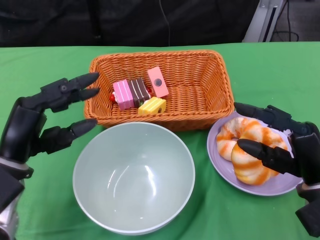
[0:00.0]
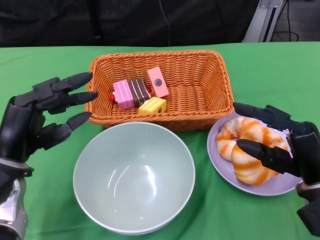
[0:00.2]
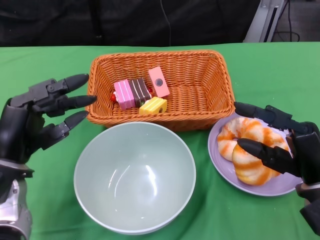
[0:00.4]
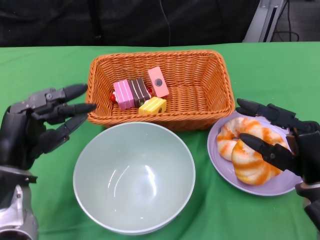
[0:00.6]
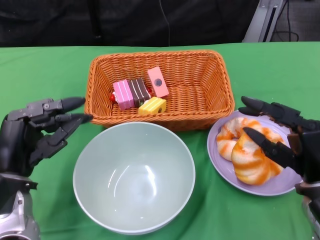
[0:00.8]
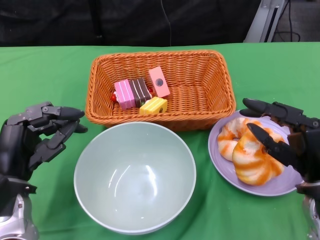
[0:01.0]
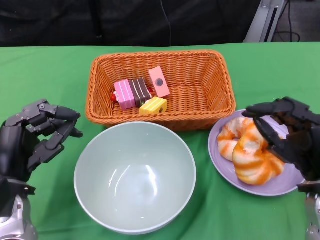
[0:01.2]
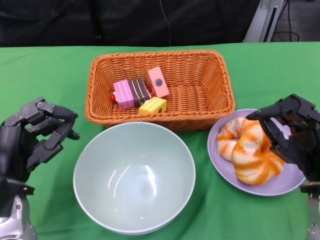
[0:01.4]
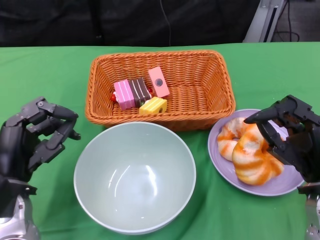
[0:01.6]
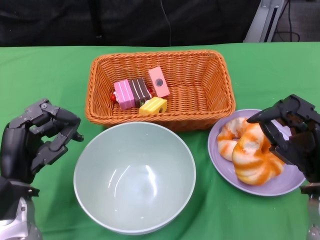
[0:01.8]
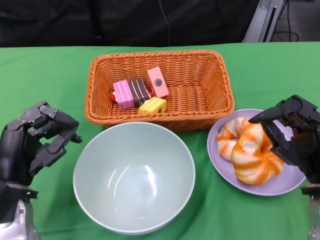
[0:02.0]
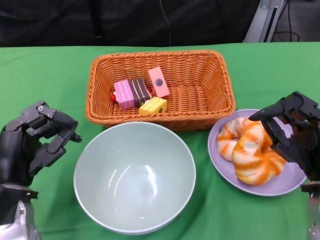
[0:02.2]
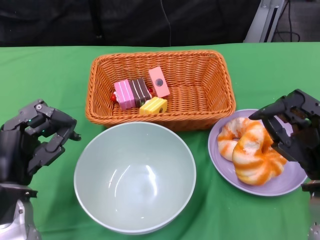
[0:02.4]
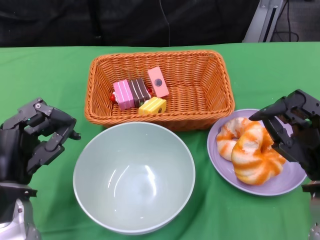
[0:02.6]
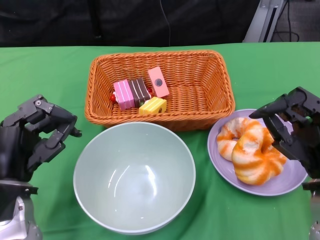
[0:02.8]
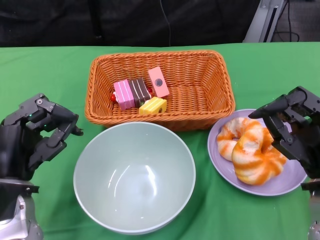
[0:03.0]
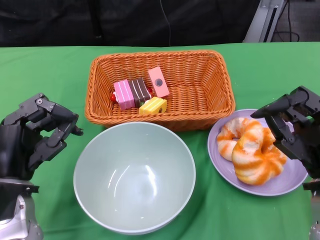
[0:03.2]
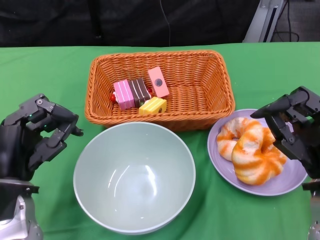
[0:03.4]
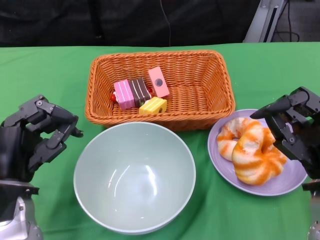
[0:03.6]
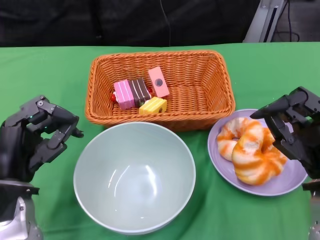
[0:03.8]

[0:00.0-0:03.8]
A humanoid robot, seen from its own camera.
0:01.2 to 0:02.6: The two hands keep their place.
0:02.6 to 0:03.8: Neither hand changes place.

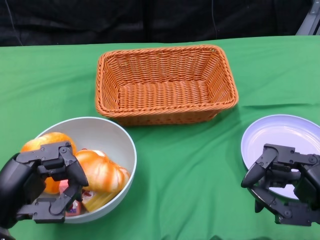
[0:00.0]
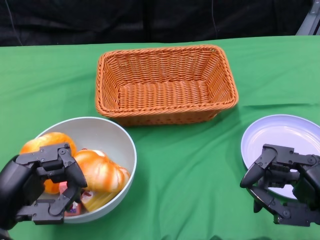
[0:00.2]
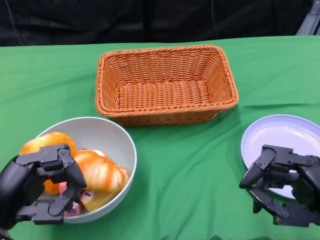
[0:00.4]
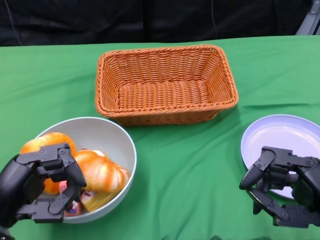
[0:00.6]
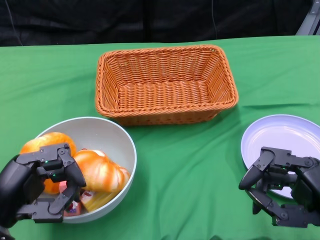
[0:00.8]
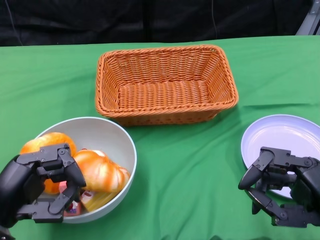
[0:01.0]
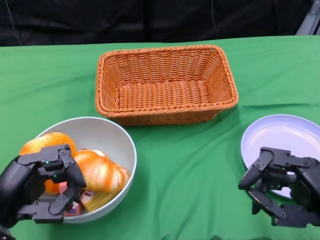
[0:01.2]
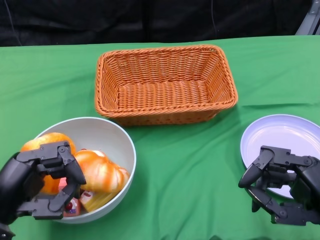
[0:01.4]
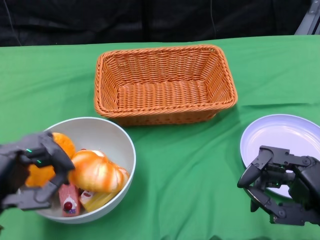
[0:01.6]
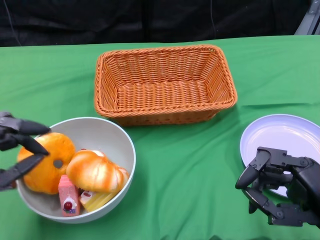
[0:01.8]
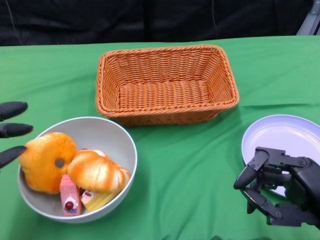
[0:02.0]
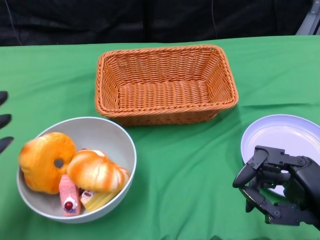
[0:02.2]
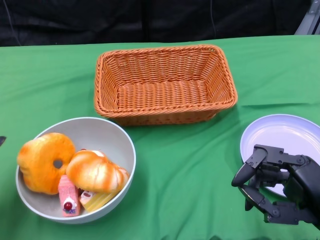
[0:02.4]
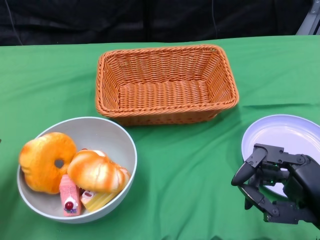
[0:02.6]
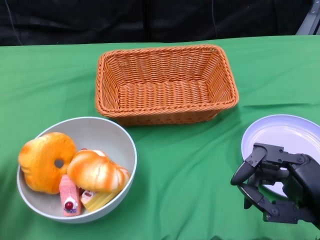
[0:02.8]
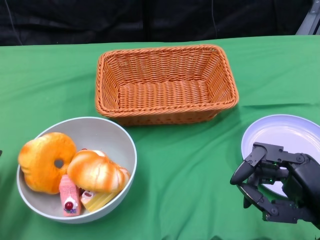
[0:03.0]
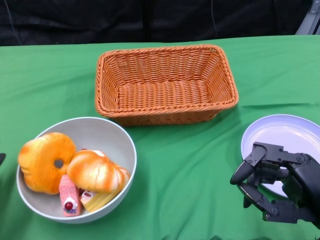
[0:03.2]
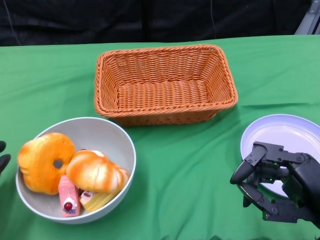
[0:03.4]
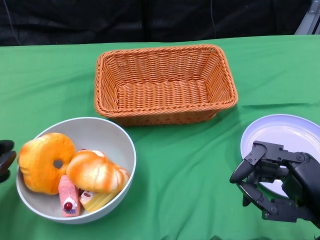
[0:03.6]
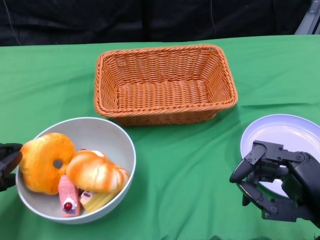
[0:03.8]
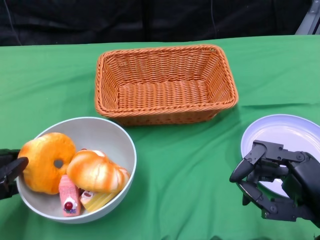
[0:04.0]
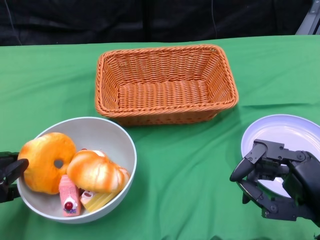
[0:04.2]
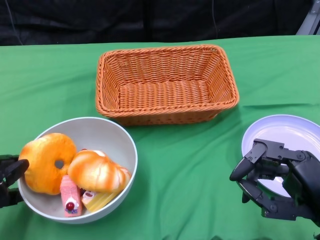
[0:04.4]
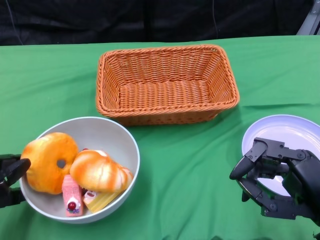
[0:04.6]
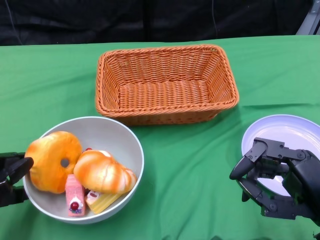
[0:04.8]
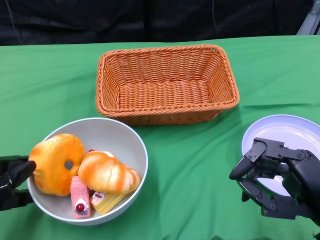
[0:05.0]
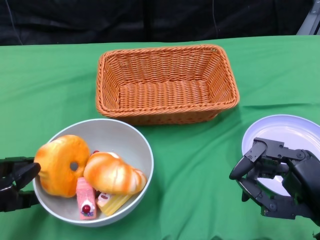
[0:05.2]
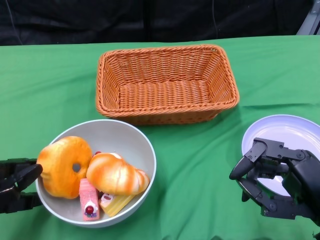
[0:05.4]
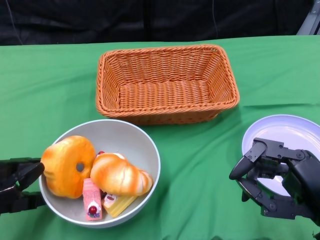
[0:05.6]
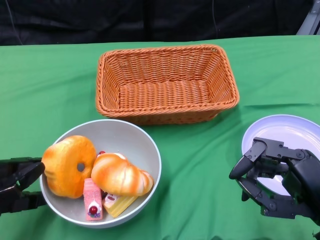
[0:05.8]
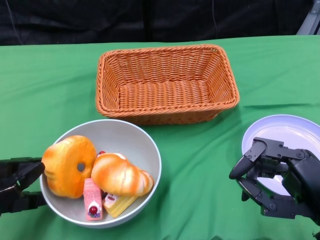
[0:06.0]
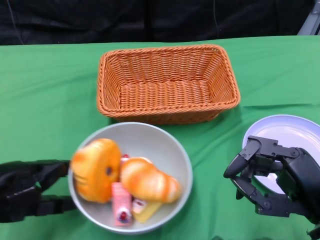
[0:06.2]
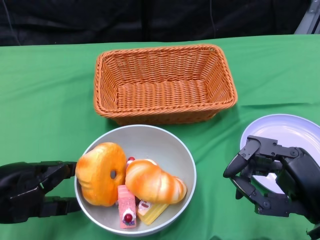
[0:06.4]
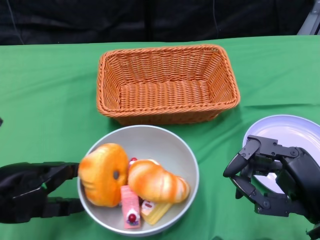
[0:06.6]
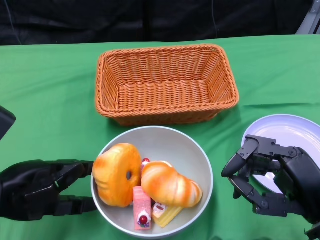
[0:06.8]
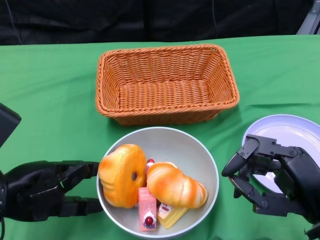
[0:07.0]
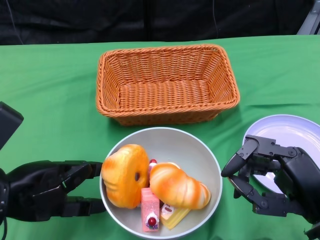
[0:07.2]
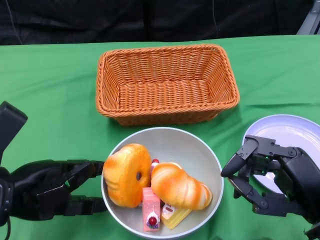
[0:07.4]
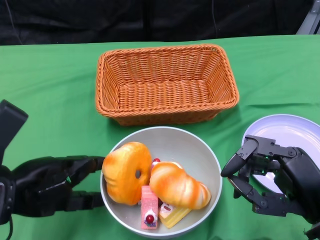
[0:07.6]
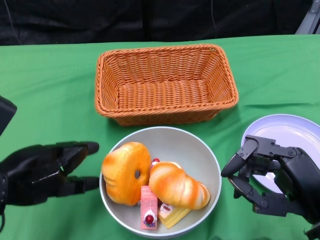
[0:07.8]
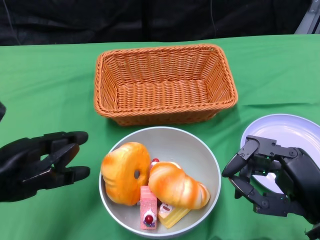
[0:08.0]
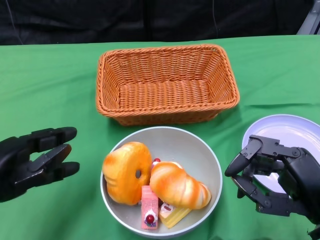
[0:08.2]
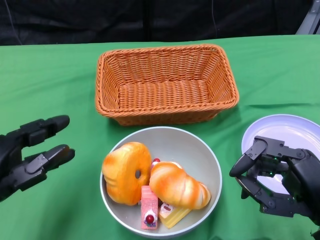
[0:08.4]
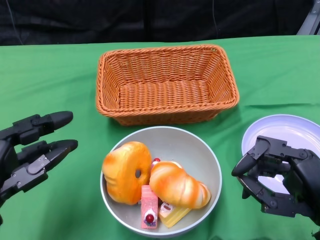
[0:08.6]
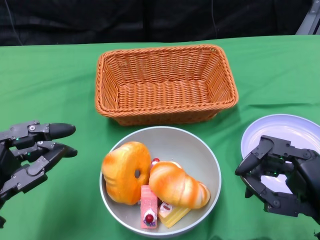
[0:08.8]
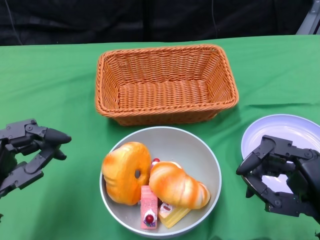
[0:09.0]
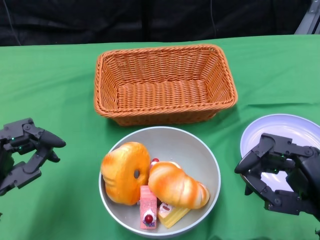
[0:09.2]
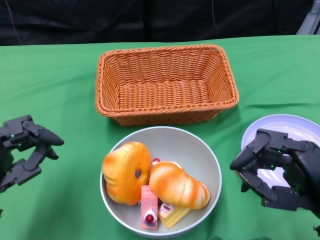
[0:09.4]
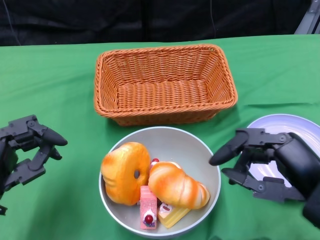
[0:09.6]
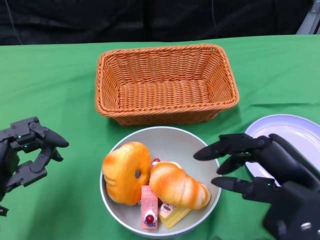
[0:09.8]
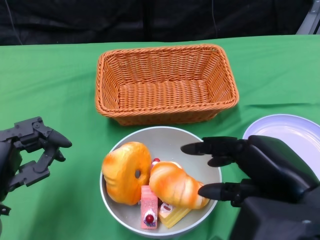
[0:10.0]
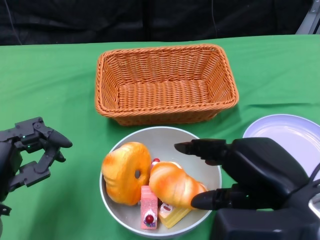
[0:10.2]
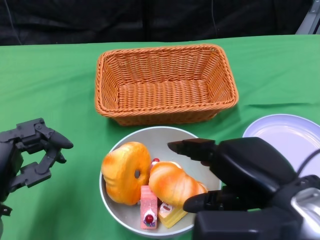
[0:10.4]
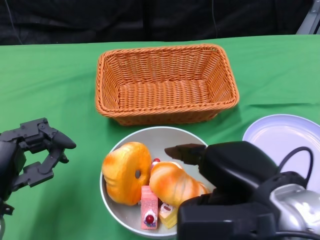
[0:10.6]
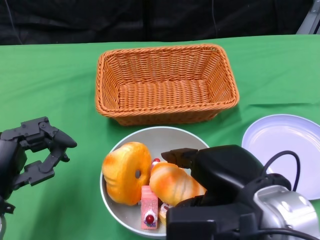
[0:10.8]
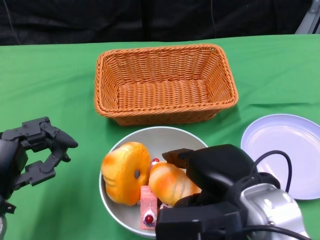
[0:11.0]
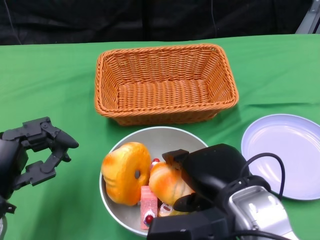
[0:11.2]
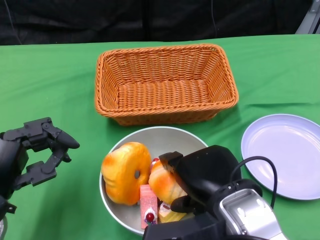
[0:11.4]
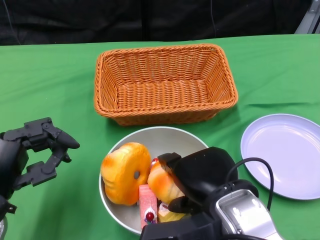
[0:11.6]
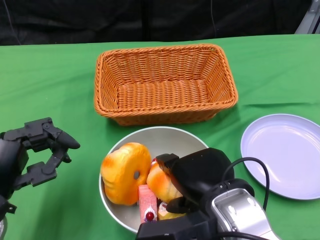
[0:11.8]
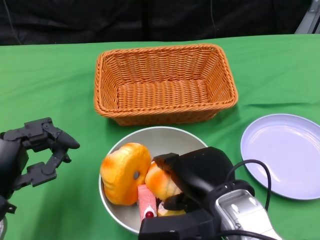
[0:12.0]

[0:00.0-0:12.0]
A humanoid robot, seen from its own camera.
Step, 0:00.0 to 0:07.0: Push the bowl to the center of the table using the left gripper.
0:01.6 to 0:03.0: The left hand moves to the left, about 10 cm.
0:04.4 to 0:06.0: The hands make only small movements.
0:06.0 to 0:07.6: The left hand moves to the right, some 5 cm.
0:07.6 to 0:09.0: The left hand shifts by some 5 cm.
0:09.0 to 0:10.4: The right hand shifts about 10 cm upward and to the left.
0:10.4 to 0:12.0: The right hand heads downward and to the left, covering some 10 cm.

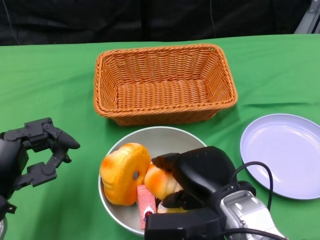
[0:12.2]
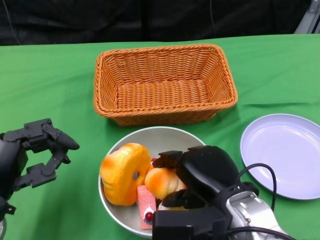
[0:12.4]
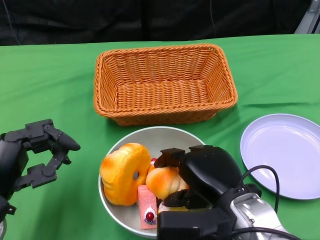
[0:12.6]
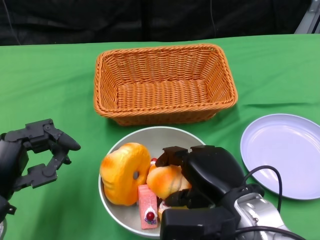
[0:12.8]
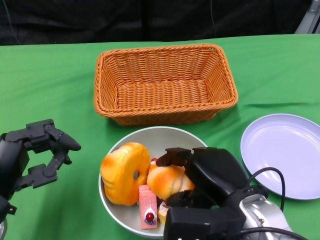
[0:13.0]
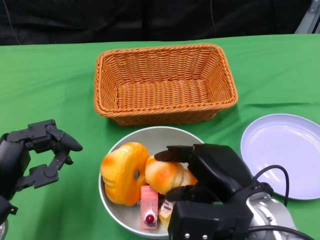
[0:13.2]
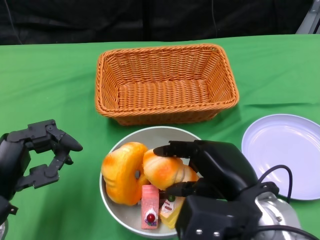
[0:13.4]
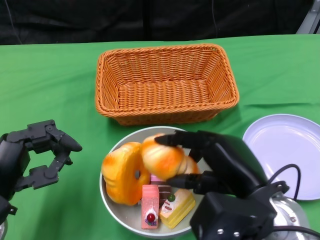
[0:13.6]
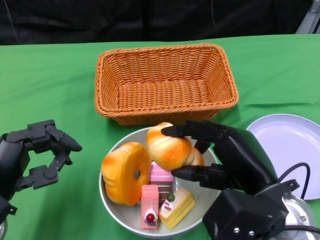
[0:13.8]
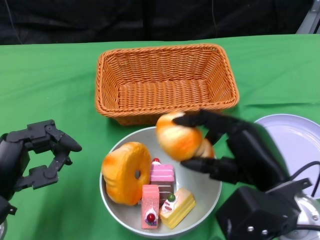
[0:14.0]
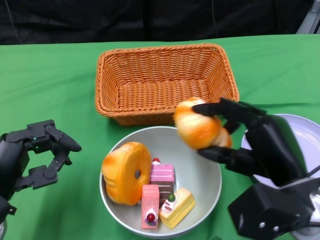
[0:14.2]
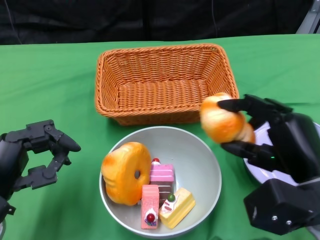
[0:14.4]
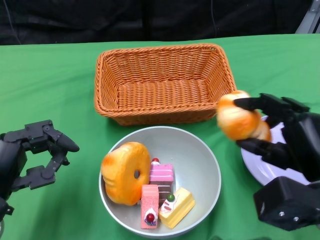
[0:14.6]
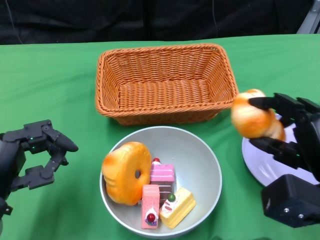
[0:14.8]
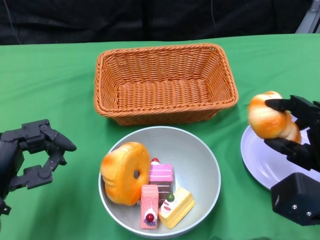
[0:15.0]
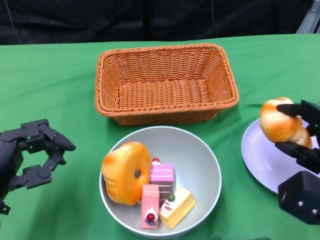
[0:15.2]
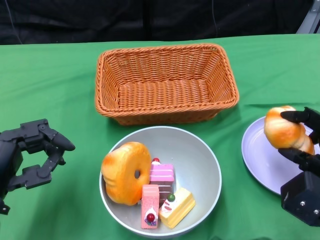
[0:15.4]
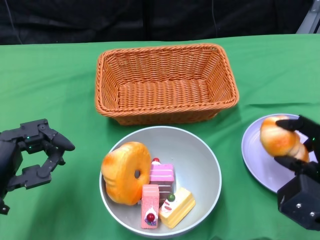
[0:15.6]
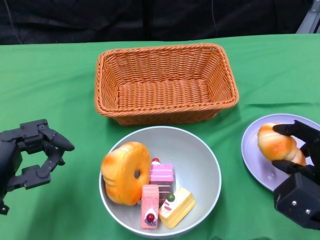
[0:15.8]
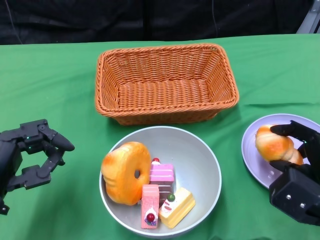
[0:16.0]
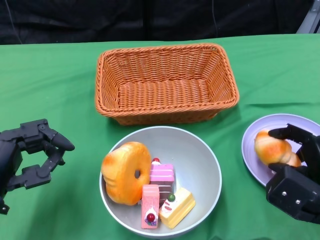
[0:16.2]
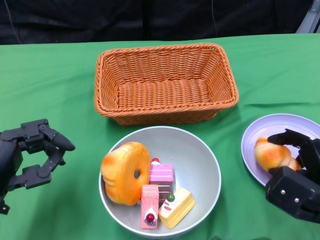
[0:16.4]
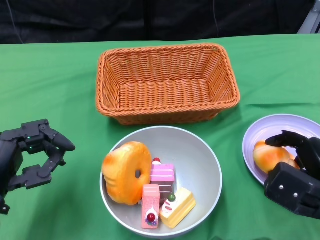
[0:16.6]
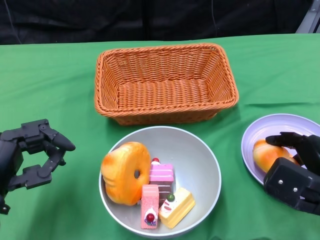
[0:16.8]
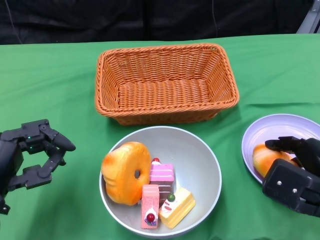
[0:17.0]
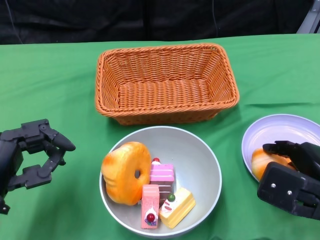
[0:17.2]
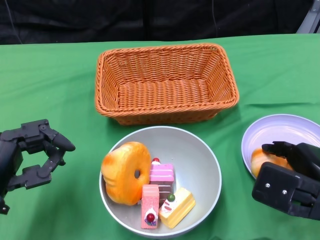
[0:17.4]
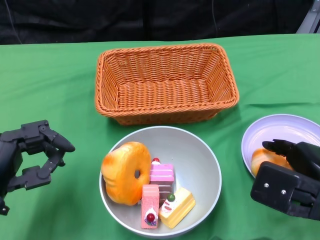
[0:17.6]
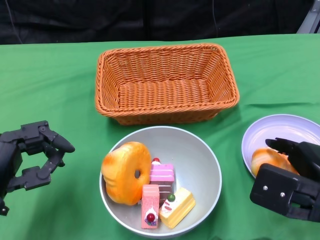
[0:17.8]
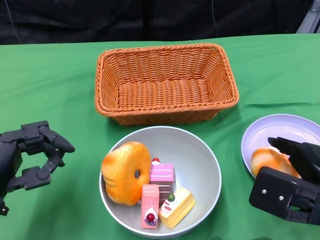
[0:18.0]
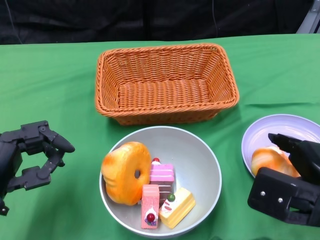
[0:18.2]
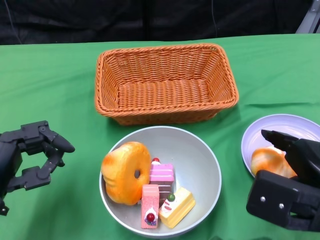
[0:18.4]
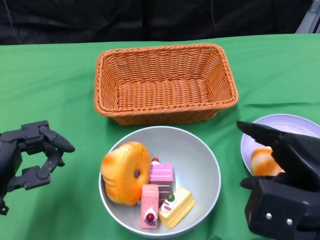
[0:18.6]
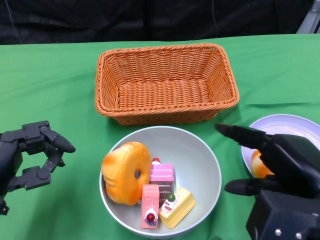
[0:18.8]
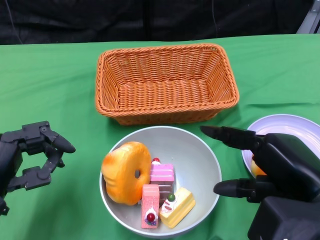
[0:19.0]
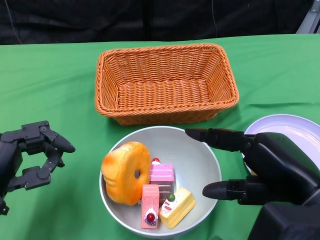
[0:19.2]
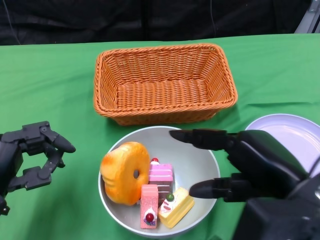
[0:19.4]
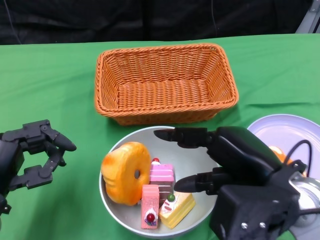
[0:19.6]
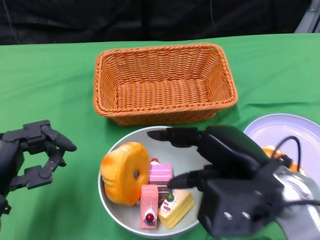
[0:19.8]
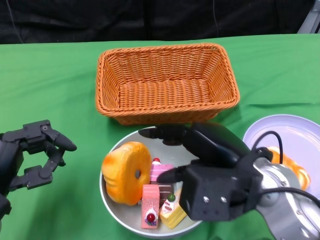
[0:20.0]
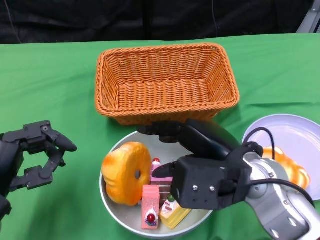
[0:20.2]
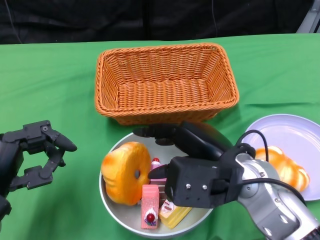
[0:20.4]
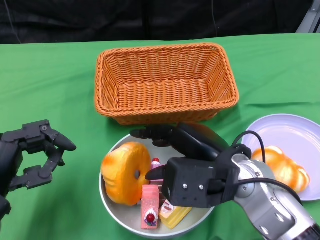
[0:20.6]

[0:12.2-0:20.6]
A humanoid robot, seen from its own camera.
0:13.6 to 0:15.0: The right hand is displaced to the right by approximately 10 cm.
0:16.4 to 0:17.8: The right hand moves upward, some 5 cm.
0:17.8 to 0:19.2: The right hand heads upward, covering approximately 5 cm.
0:19.2 to 0:20.6: The right hand travels to the left and forward by approximately 10 cm.
